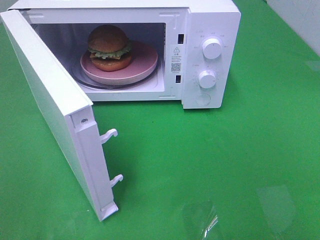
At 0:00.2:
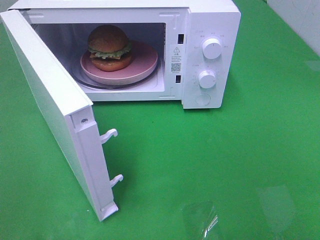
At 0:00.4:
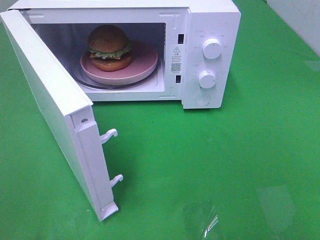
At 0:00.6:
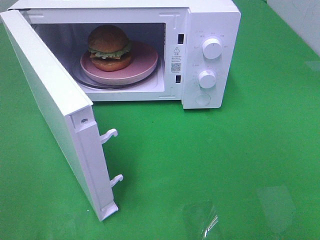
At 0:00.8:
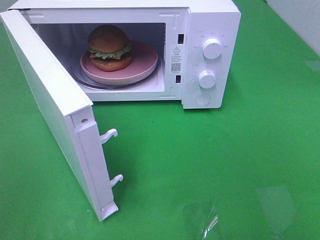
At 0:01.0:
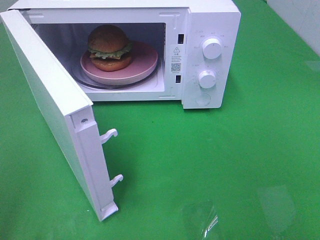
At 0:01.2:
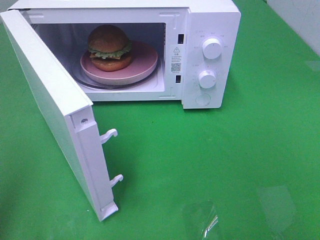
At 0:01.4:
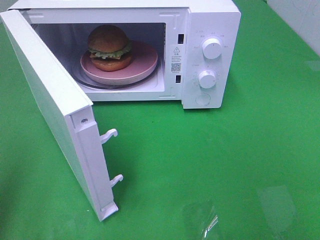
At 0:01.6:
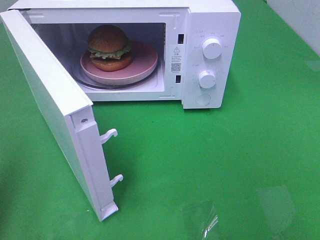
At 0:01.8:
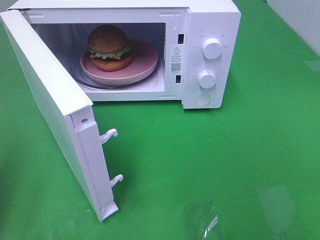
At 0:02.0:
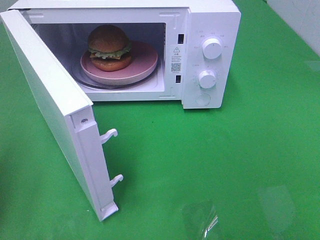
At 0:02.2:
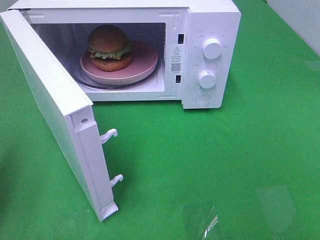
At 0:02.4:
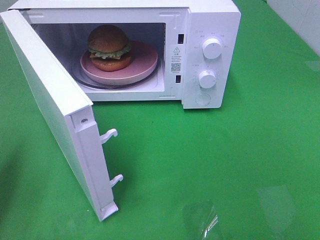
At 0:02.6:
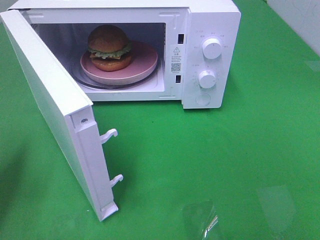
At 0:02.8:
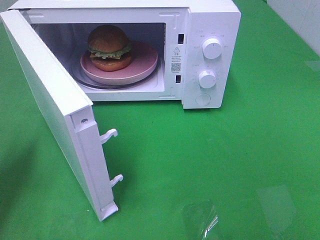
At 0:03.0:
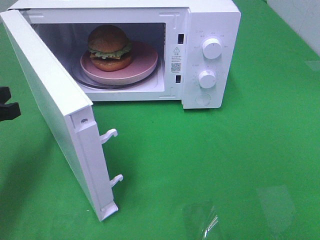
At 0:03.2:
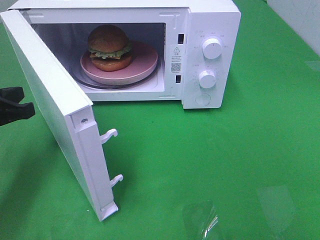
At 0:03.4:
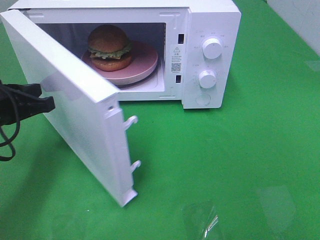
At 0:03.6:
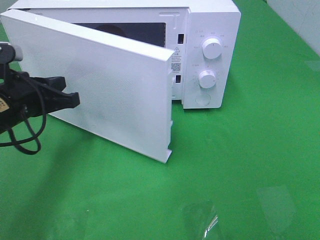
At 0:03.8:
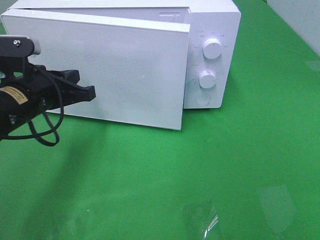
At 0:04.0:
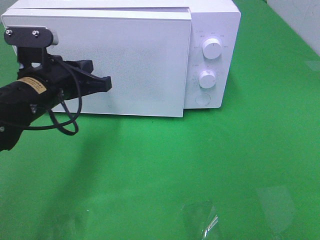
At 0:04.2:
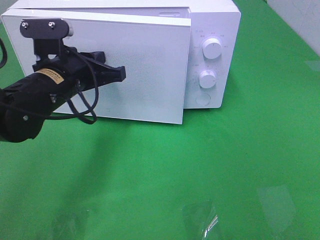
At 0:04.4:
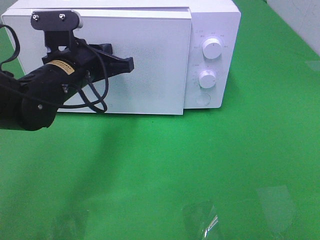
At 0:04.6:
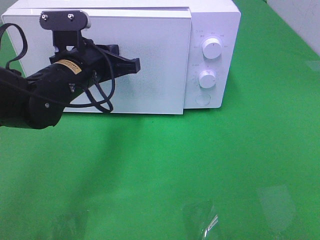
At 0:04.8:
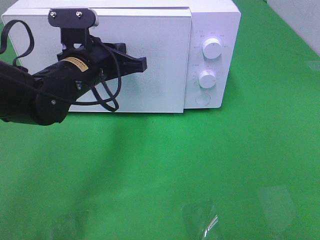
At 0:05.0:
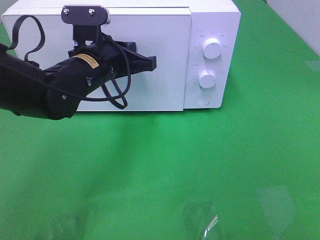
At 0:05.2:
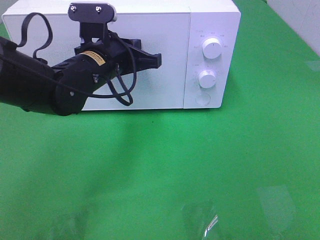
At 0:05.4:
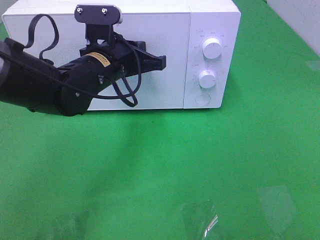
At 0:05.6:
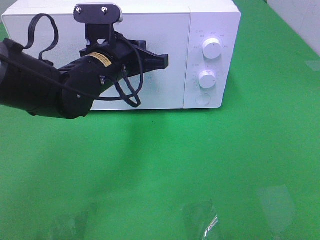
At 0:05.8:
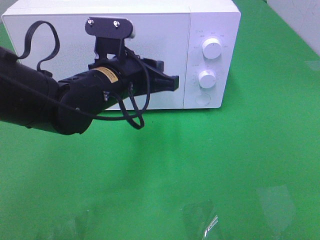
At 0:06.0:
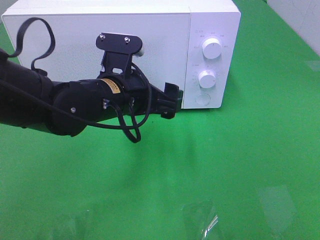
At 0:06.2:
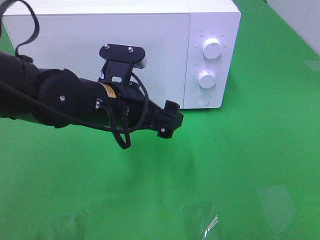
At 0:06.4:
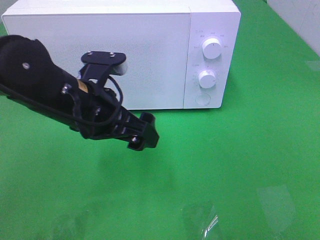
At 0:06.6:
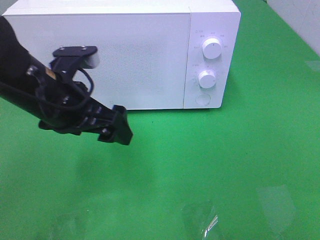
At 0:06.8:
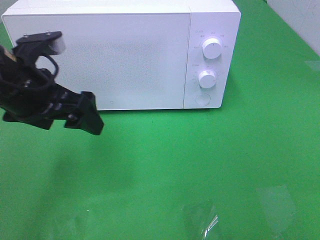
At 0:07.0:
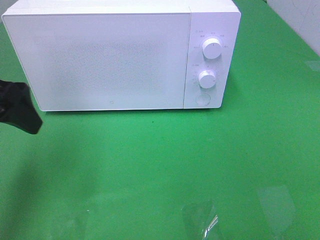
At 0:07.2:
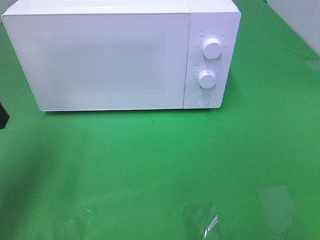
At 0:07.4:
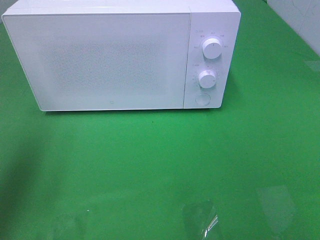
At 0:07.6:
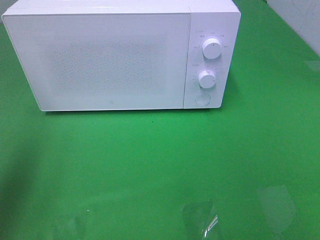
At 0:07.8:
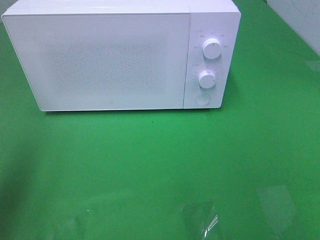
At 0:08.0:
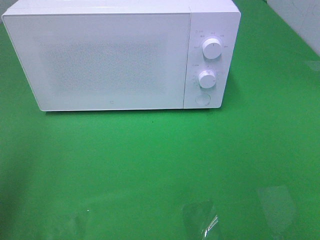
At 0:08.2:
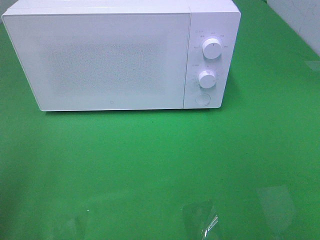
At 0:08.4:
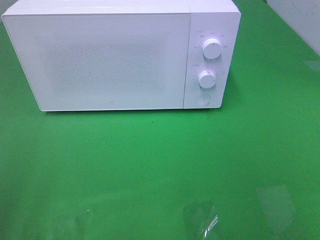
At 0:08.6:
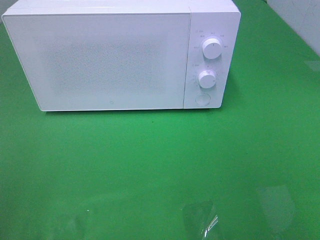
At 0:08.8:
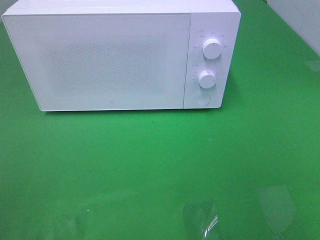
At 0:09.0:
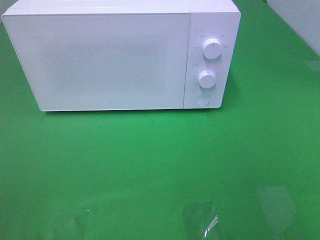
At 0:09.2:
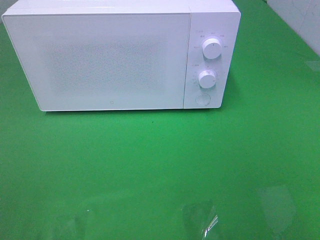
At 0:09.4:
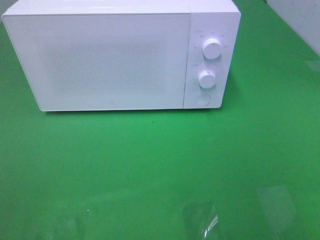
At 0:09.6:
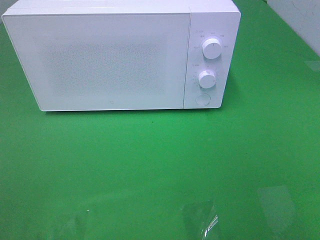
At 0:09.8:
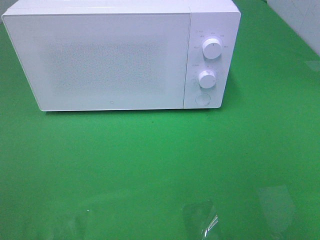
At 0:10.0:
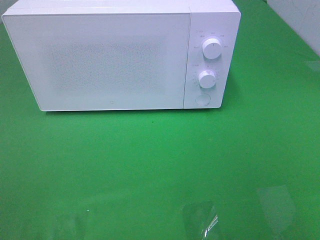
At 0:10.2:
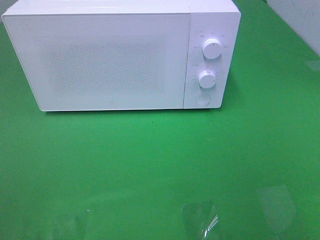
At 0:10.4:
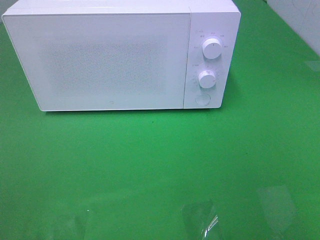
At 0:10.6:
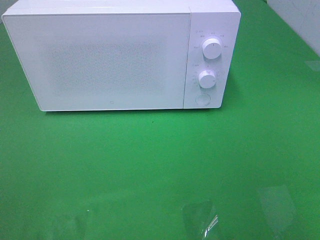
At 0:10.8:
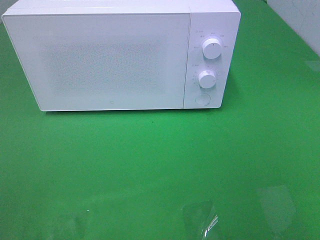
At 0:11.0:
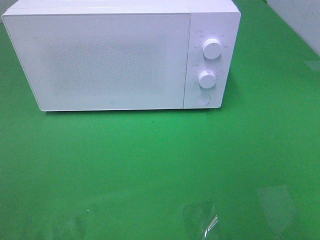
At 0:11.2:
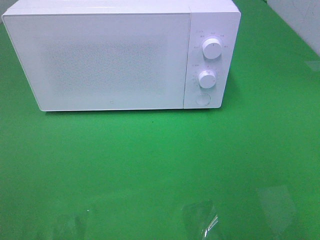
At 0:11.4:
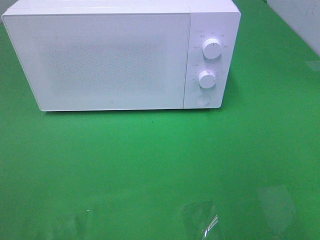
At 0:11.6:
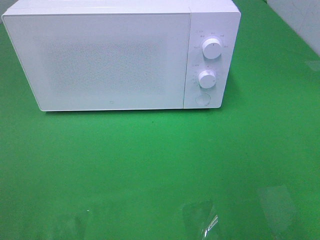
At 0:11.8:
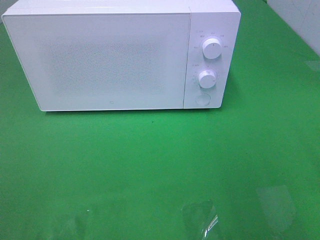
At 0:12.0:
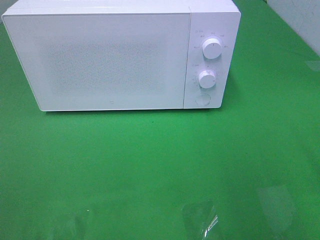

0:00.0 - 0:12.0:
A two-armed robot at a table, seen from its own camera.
Task of the whole recording: Heat the burger.
Step, 0:00.0 - 0:05.8: Left hand: close the microwave door.
0:00.0 - 0:01.6: The left gripper shifts approximately 15 cm forward, and closes its fingers.
0:01.6 - 0:03.0: The left gripper travels forward and downward by approximately 15 cm.
0:03.0 - 0:04.4: The left gripper shifts about 20 cm to the right and forward.
0:04.4 - 0:06.0: The left gripper moves to the right, roughly 5 cm, and opens its fingers.
0:06.0 - 0:07.6: The left gripper goes approximately 30 cm to the left and upward.
0:07.6 - 0:09.0: The left gripper shifts some 20 cm backward.
0:09.0 - 0:10.4: Both grippers stay about where they are.

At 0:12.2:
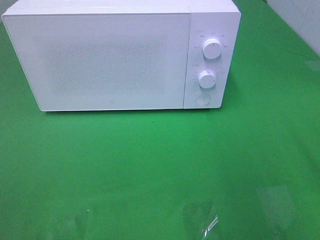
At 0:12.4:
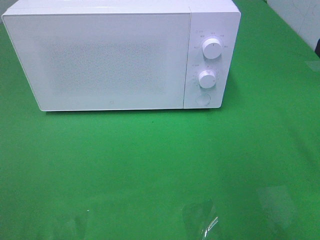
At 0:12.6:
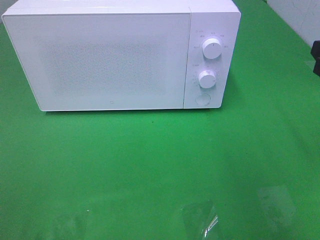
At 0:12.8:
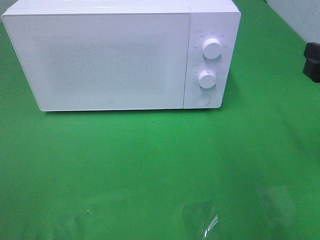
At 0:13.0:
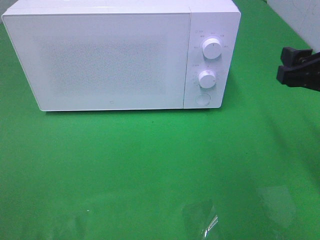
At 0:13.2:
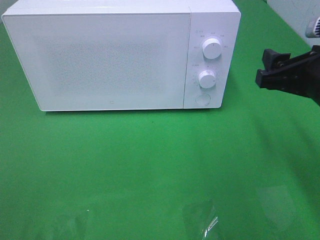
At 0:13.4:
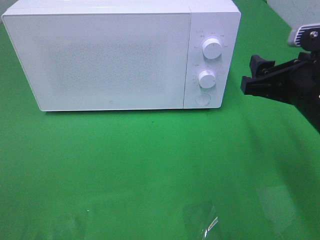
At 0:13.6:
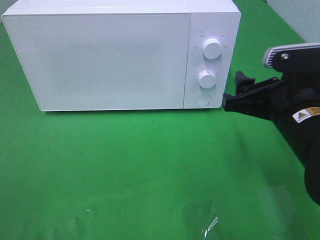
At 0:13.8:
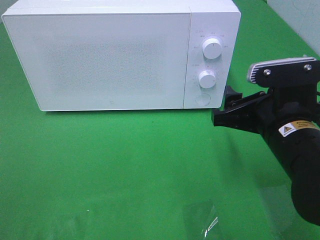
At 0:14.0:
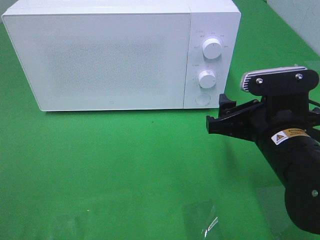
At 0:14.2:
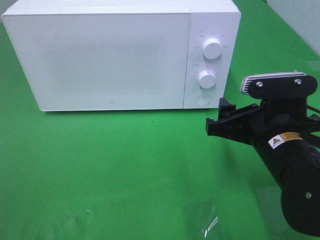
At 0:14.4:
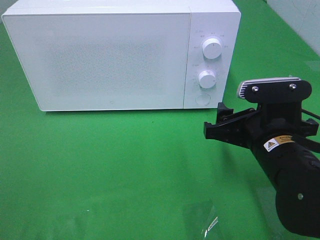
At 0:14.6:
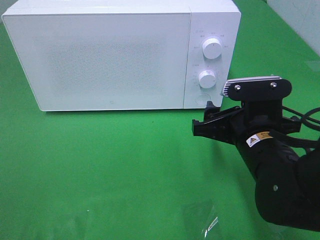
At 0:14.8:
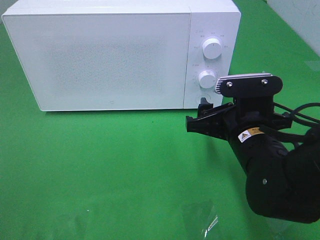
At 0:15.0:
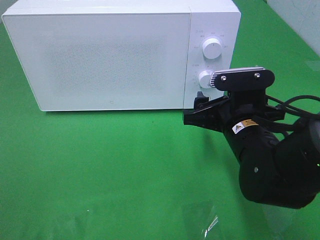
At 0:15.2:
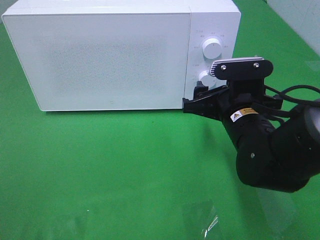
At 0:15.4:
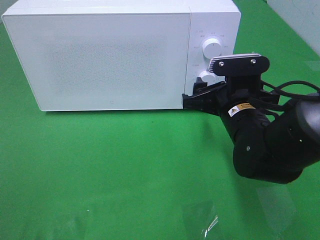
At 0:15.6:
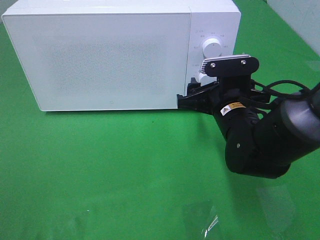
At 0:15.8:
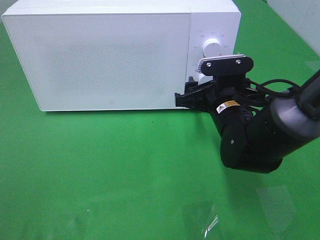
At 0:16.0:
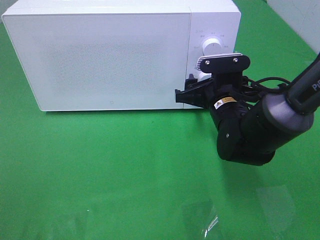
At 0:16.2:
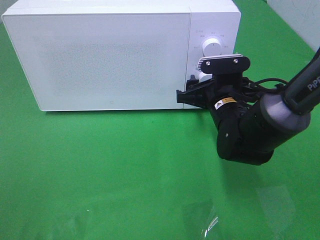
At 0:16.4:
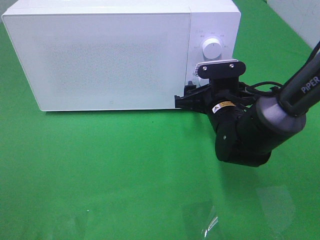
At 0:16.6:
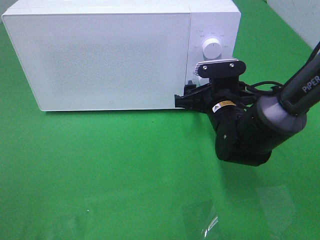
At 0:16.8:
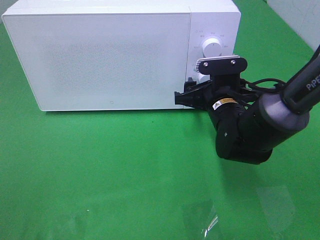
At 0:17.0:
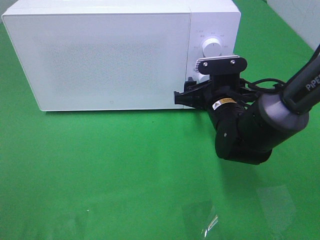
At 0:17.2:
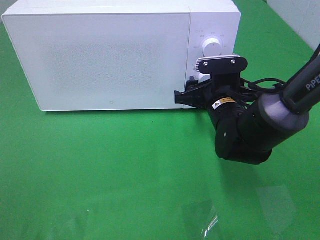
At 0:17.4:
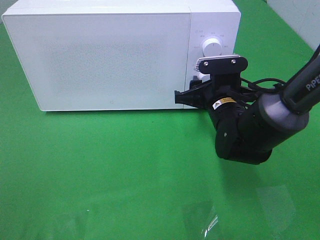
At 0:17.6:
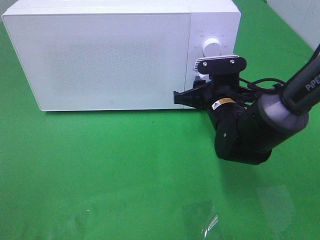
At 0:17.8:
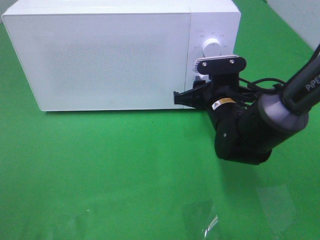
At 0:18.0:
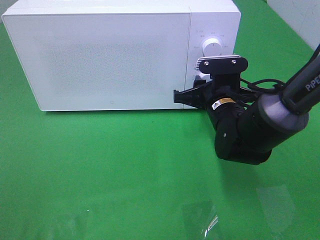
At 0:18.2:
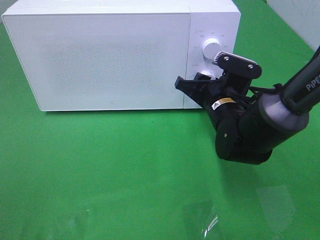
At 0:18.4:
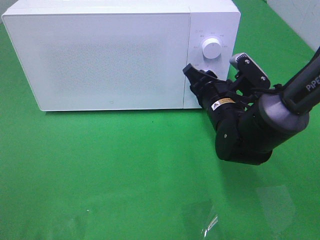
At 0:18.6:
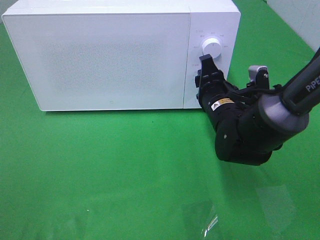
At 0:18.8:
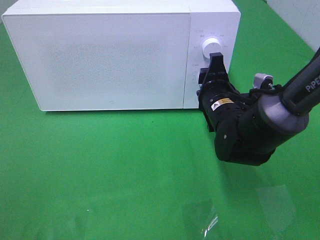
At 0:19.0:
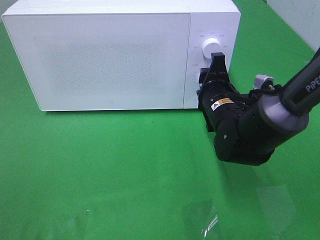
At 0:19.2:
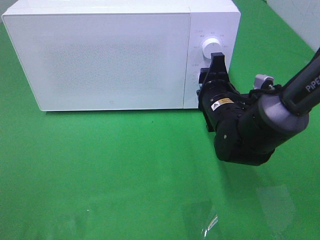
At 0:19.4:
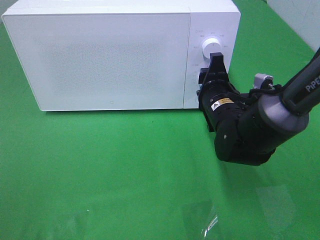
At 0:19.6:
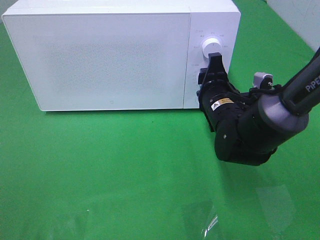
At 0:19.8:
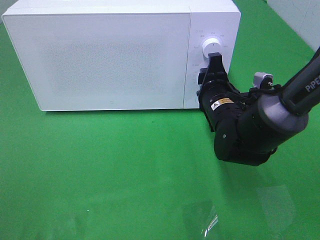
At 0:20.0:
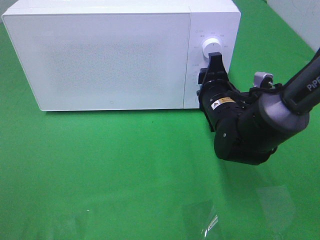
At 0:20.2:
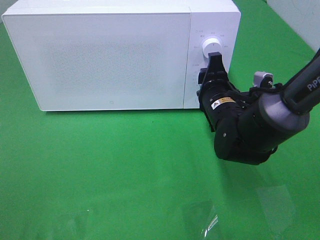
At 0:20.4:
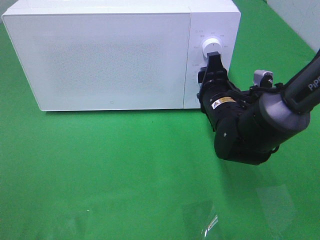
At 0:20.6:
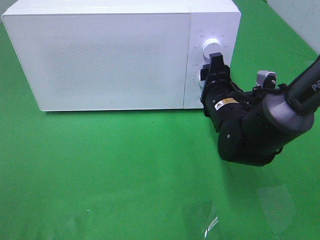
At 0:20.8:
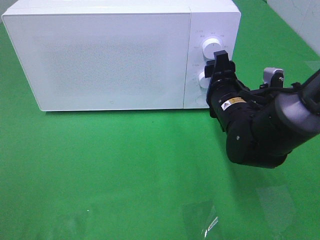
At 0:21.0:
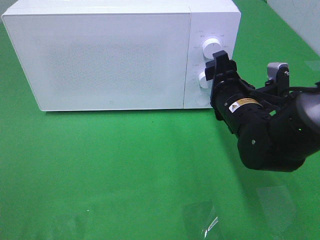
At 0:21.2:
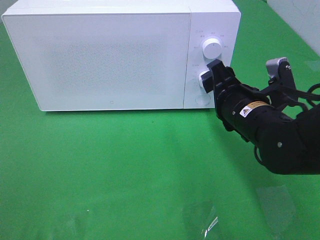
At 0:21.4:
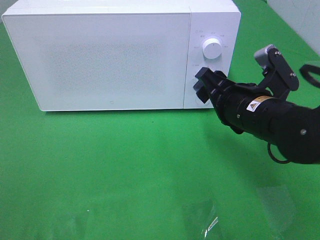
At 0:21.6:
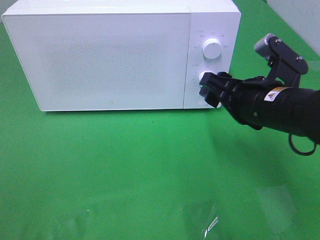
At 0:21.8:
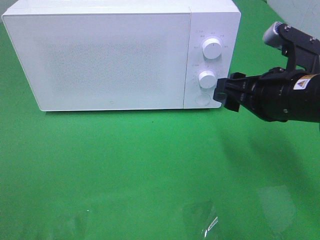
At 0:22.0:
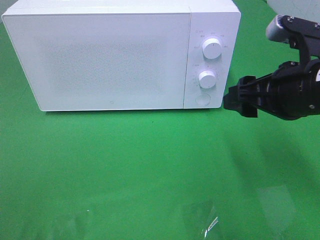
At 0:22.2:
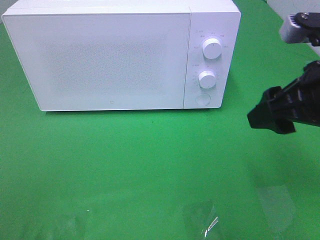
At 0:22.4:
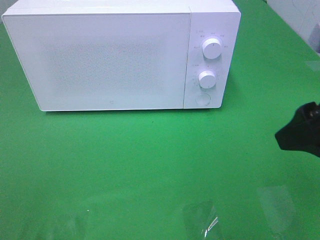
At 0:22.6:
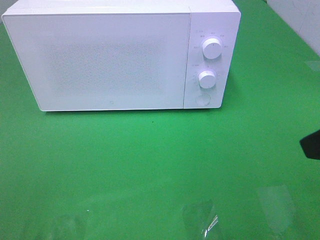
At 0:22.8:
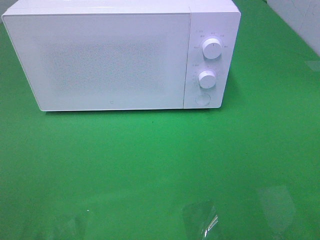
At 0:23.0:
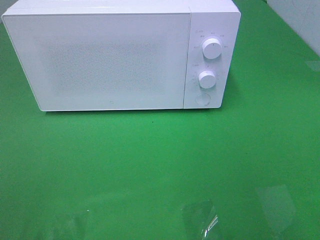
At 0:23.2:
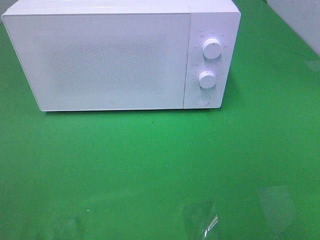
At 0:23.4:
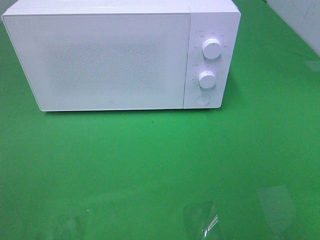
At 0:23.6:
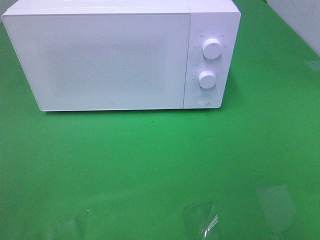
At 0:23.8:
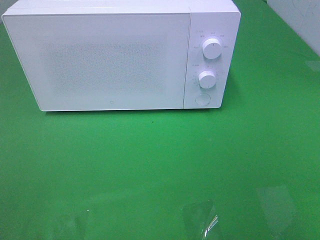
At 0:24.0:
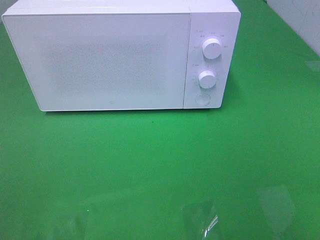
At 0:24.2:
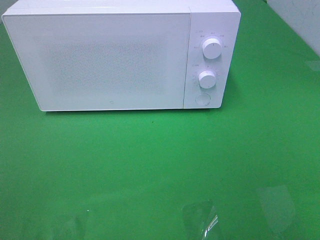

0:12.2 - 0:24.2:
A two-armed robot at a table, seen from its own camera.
Task of the whole recording: Heat the burger.
Step, 0:12.2 - 0:20.6: Right hand: twist timer button.
0:12.2 - 0:13.8: The right gripper heads to the left and downward, covering roughly 15 cm.
0:13.8 - 0:15.2: The right gripper heads forward, covering some 5 cm.
0:15.2 - 0:16.6: The right gripper is displaced forward by roughly 5 cm.
0:16.6 - 0:18.2: The right gripper closes up.
0:19.8 - 0:21.2: The right gripper moves backward, approximately 5 cm.
0:21.2 - 0:22.6: The right gripper is displaced upward, backward and to the right by some 25 cm.
